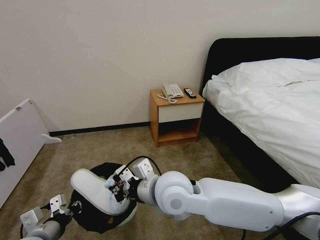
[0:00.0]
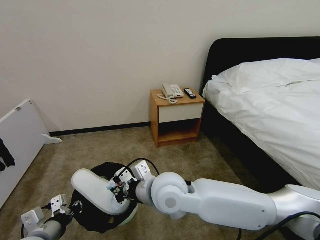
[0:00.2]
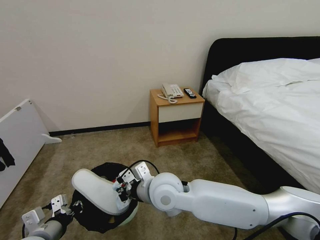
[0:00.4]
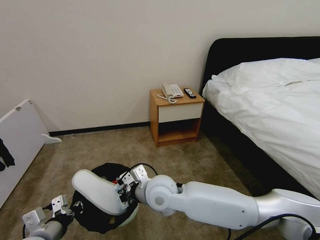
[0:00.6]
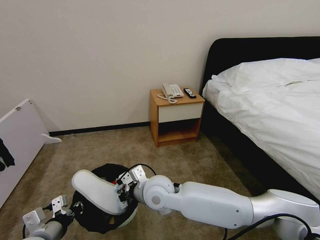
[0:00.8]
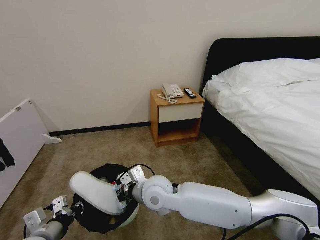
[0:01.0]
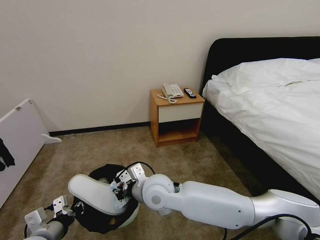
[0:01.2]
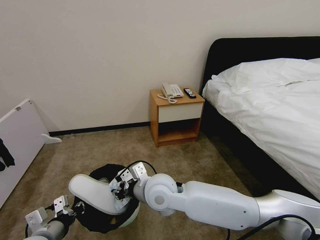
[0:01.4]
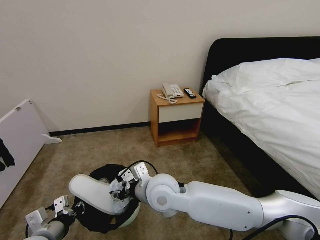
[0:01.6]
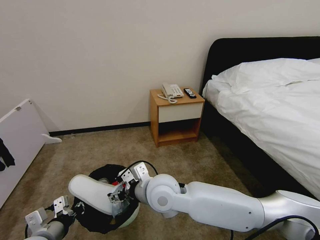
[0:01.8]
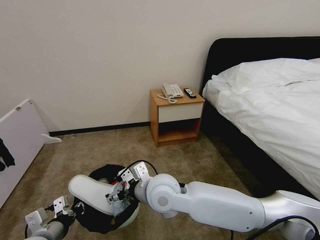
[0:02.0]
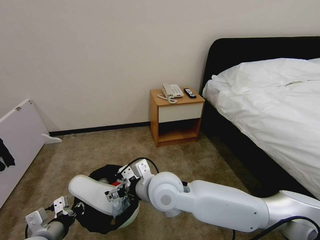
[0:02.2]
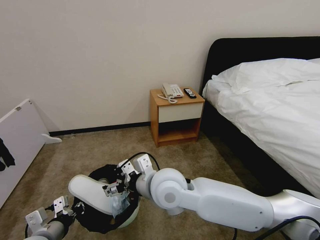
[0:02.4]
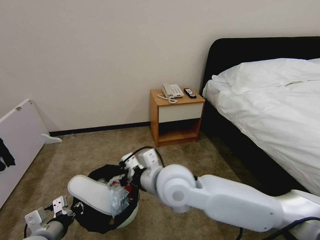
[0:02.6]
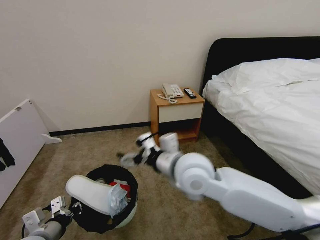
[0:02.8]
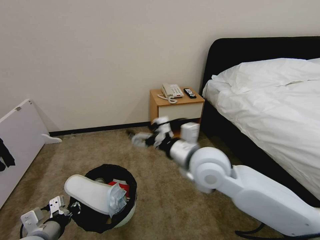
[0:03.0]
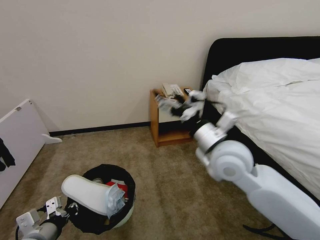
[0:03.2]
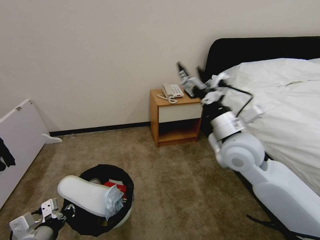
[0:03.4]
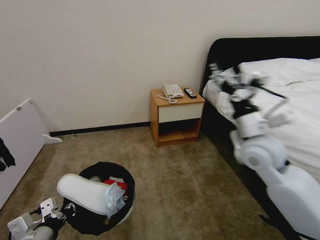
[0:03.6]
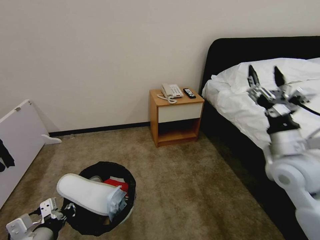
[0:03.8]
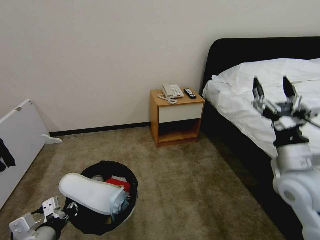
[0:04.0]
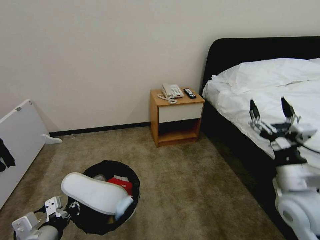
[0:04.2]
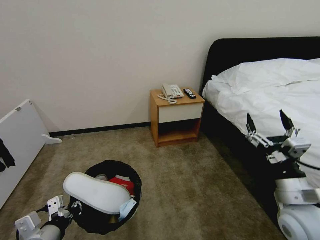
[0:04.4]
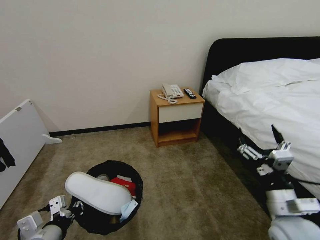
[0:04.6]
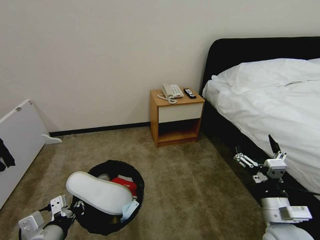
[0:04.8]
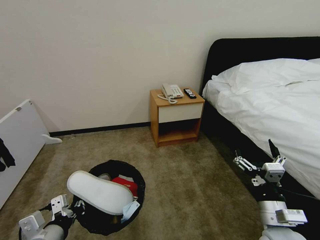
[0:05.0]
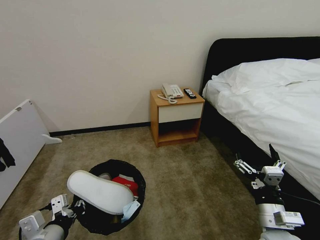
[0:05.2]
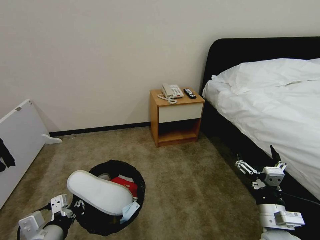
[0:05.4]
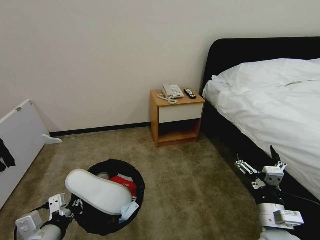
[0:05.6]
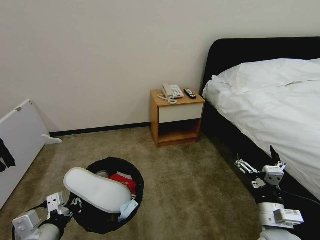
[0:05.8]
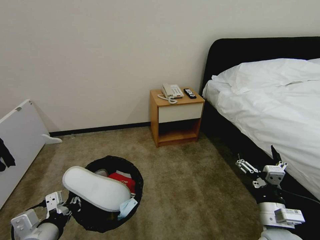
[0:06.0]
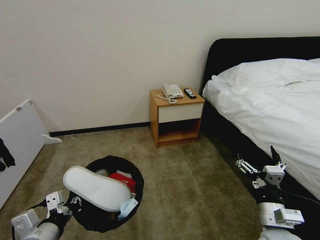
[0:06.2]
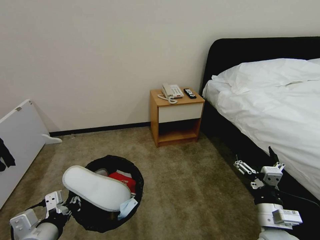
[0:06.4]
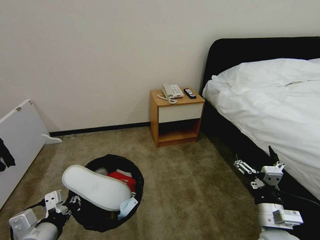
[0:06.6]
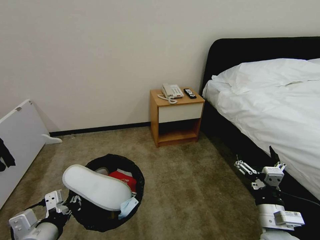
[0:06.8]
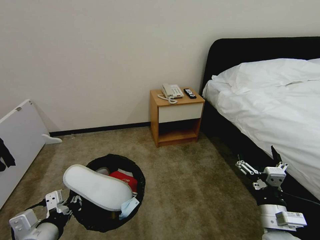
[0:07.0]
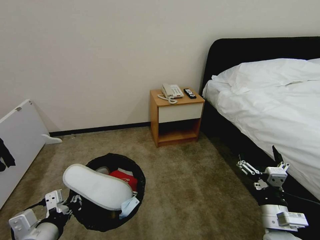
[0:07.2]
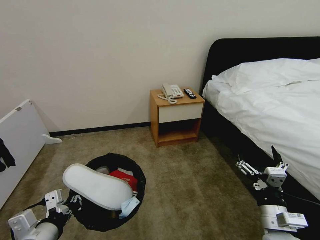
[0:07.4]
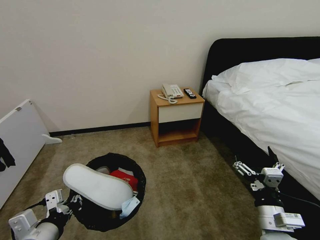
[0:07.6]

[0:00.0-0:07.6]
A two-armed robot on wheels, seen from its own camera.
Task of the whole recording: Pick up the trash bin, then pick up the garbage from the floor and place it into the trash bin.
0:00.0 to 0:01.6: The right gripper moves downward, about 5 cm, and opens up.
0:01.6 to 0:03.0: The right gripper travels to the right and upward by about 15 cm, and opens its fingers.
0:03.0 to 0:04.6: The right gripper shifts some 25 cm to the right, downward and backward.
0:04.6 to 0:06.0: The right gripper is displaced downward by approximately 5 cm.
0:06.0 to 0:07.6: Neither gripper changes place.
